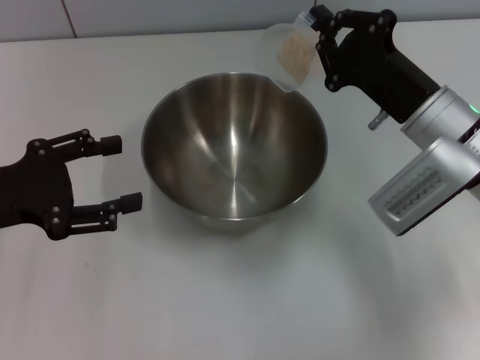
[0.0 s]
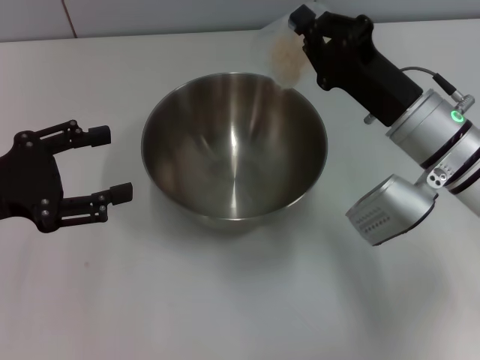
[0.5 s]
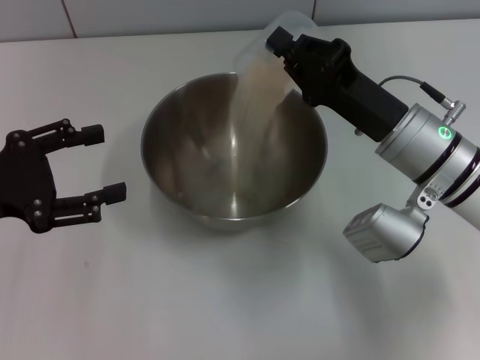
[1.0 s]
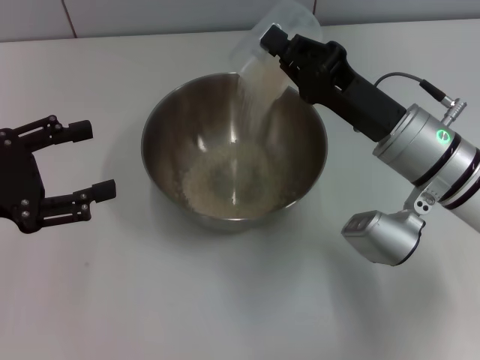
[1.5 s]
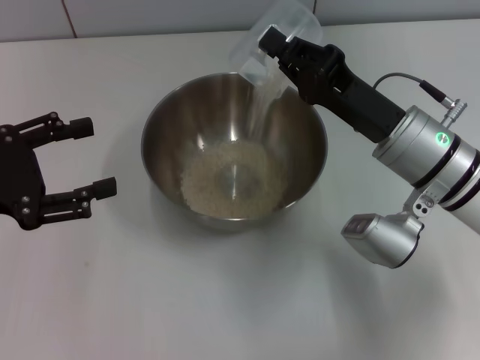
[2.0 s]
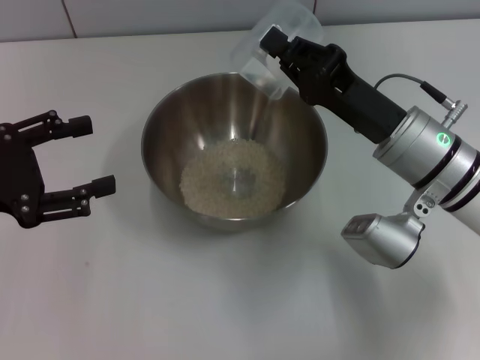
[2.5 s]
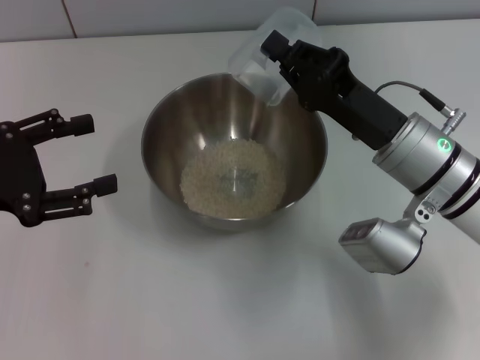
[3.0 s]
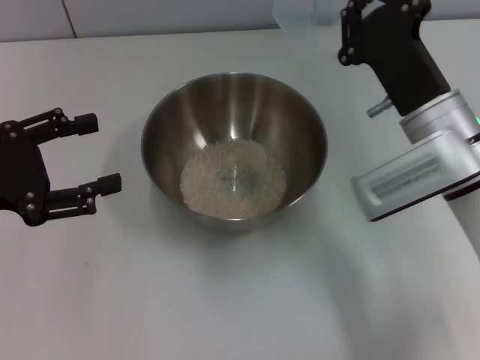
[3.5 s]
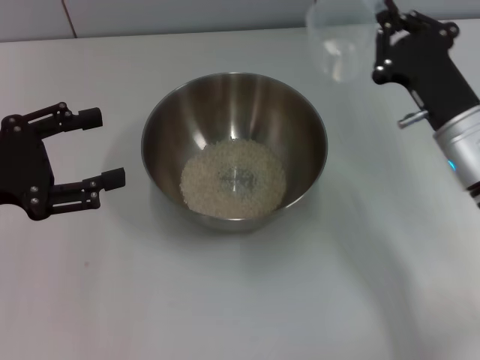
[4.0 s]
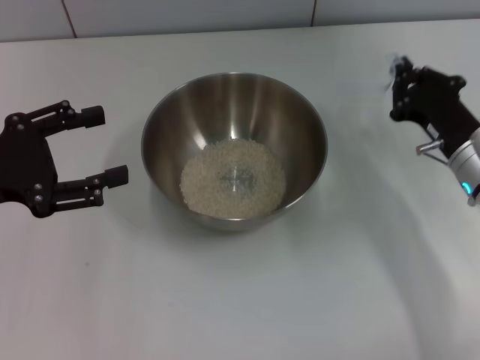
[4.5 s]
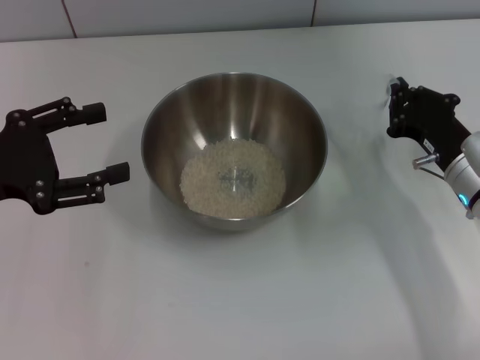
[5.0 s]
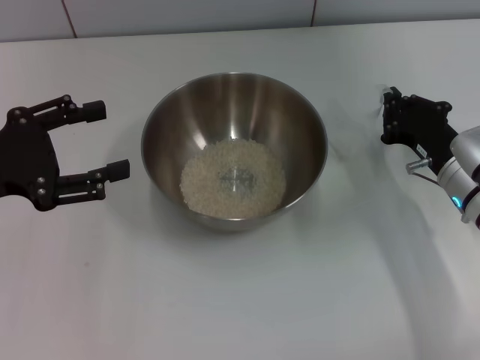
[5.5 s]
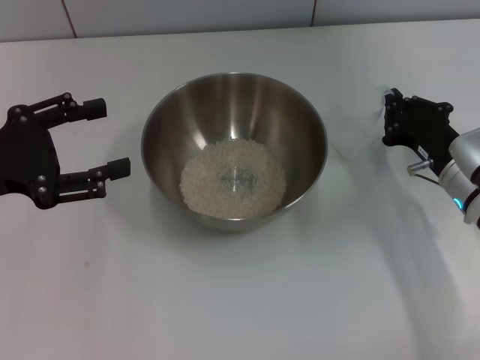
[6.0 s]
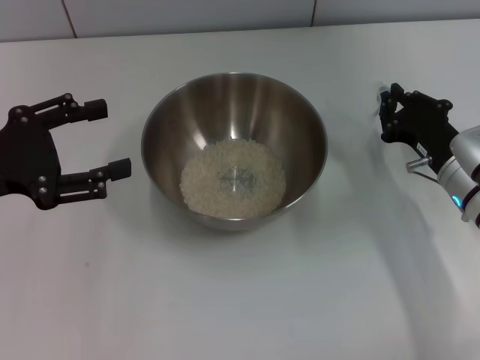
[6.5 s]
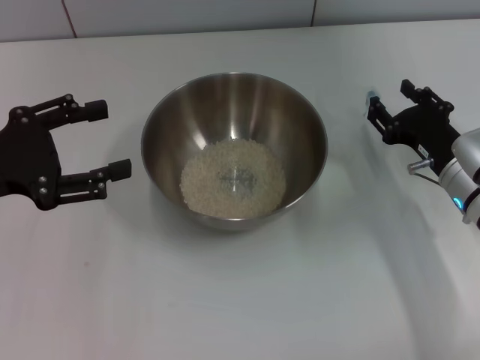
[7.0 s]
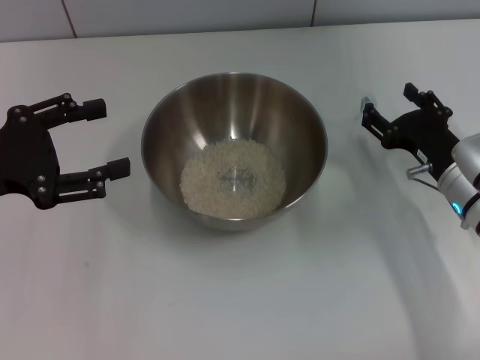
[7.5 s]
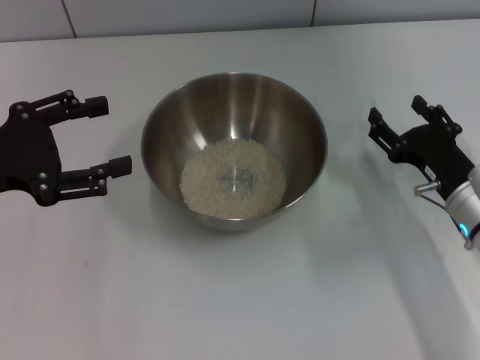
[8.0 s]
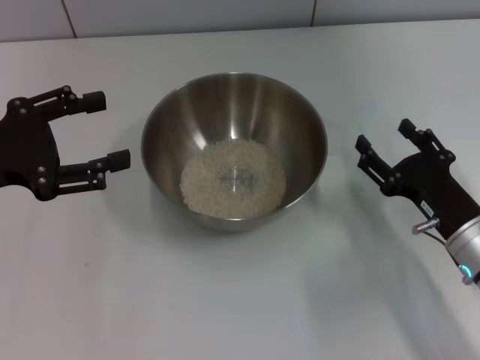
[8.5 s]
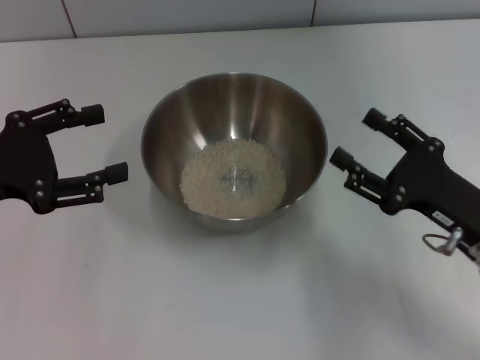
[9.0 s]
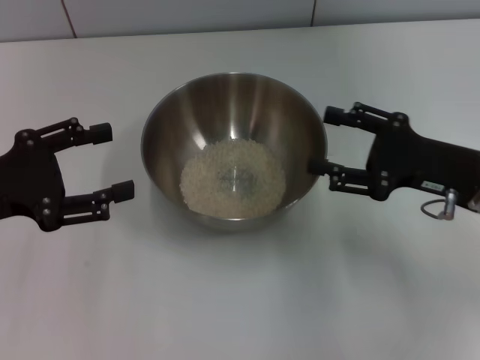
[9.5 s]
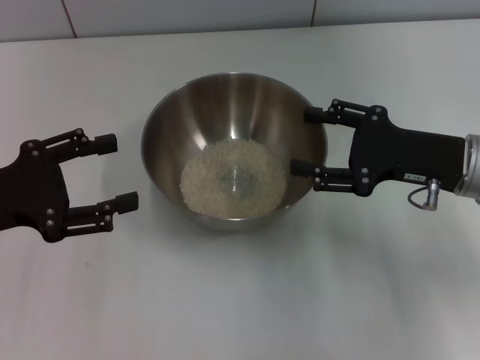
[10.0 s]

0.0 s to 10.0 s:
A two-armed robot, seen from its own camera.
Task of the whole recording: Place the bowl in the middle of the table with one hand and pour the rice from the grain cup into it with the other hand.
Step, 0.0 to 3.0 s: Pour the rice from the cup into the bowl with the right gripper.
Step, 4.0 to 7.5 s: Place the cup on the table with the right gripper.
2.0 to 4.0 s: The right gripper shifts roughly 5 cm to the right.
4.0 to 6.0 s: The right gripper moves downward, about 5 cm.
6.0 to 8.0 s: The right gripper opens its fingers.
8.0 to 10.0 s: The right gripper moves upward, roughly 10 cm.
